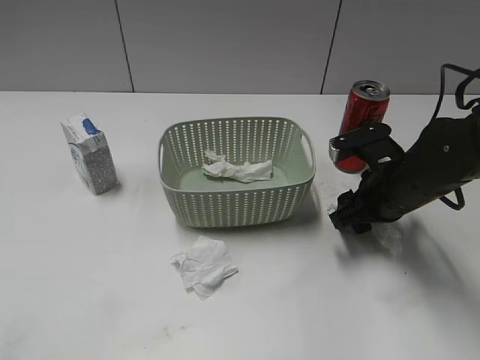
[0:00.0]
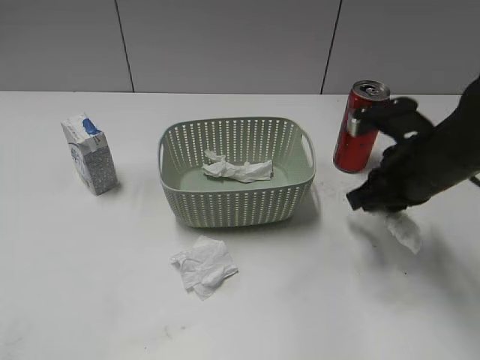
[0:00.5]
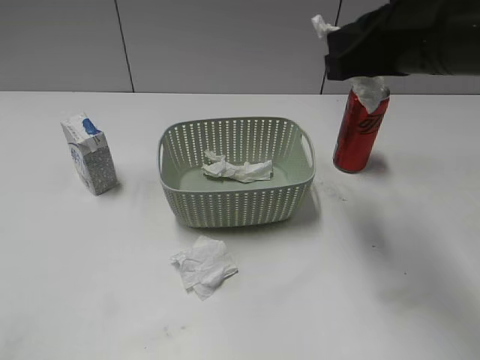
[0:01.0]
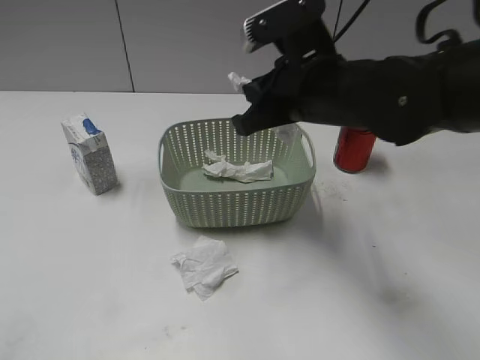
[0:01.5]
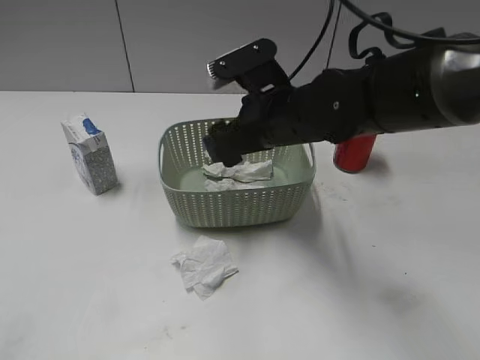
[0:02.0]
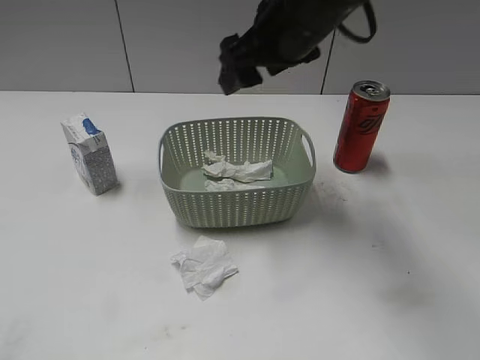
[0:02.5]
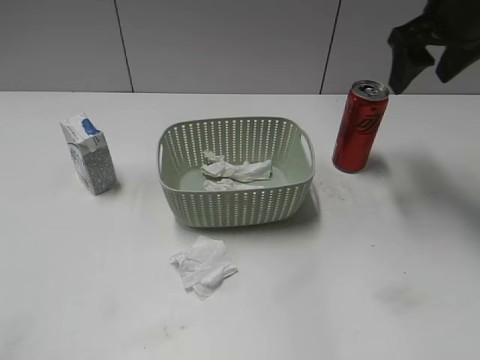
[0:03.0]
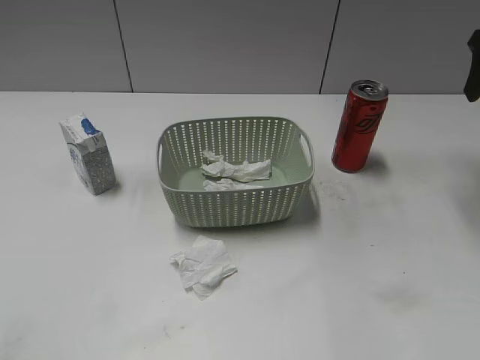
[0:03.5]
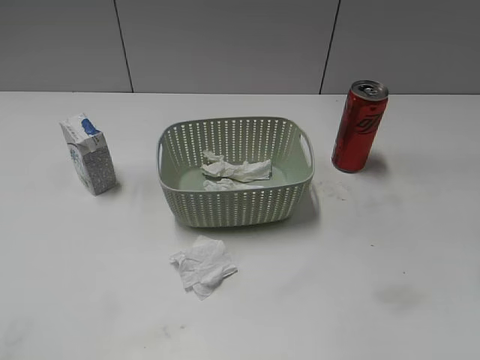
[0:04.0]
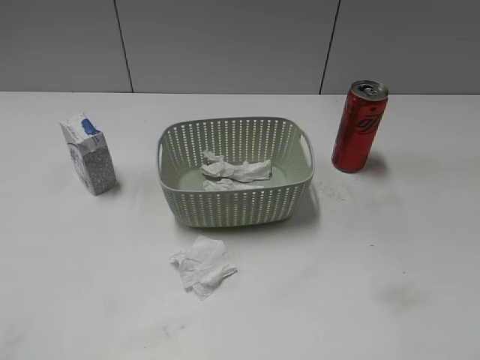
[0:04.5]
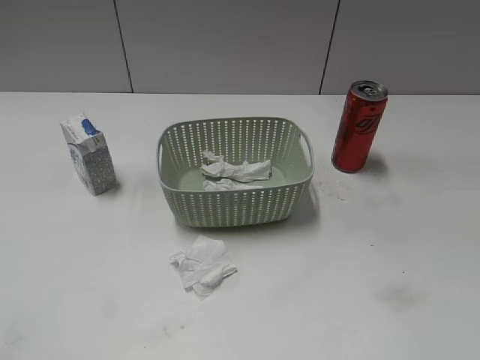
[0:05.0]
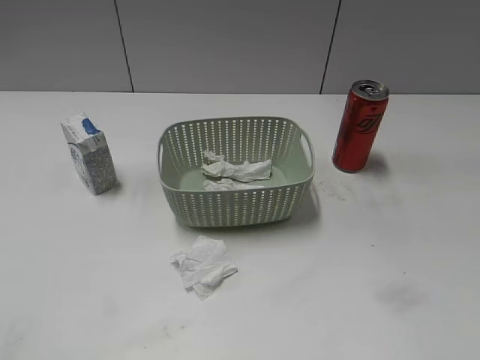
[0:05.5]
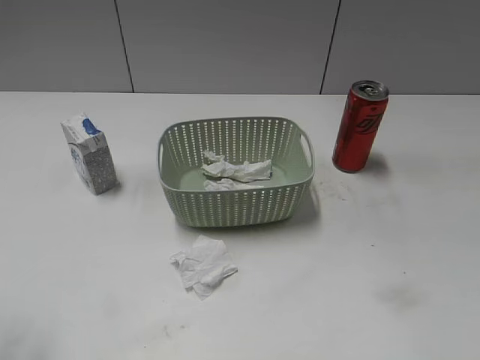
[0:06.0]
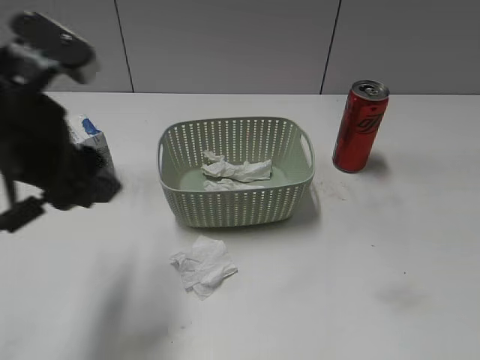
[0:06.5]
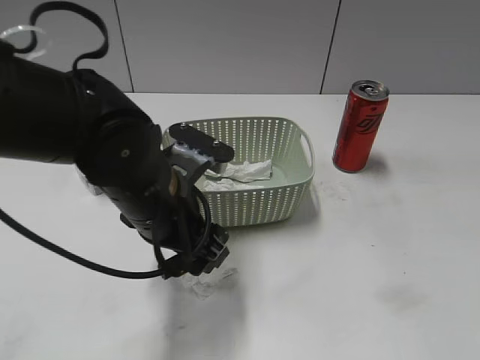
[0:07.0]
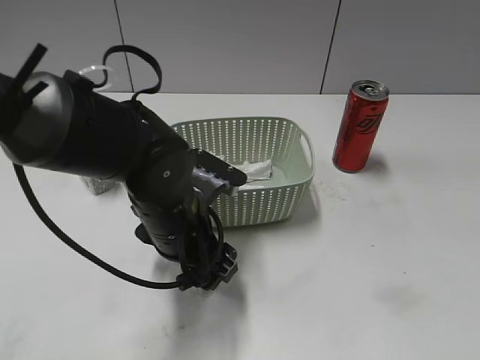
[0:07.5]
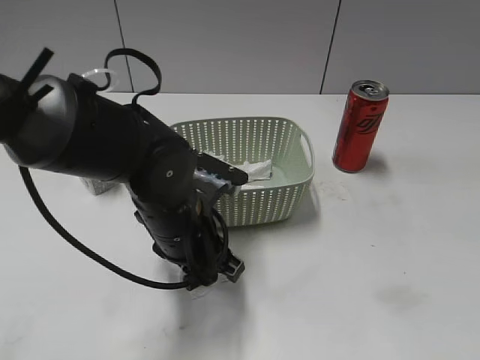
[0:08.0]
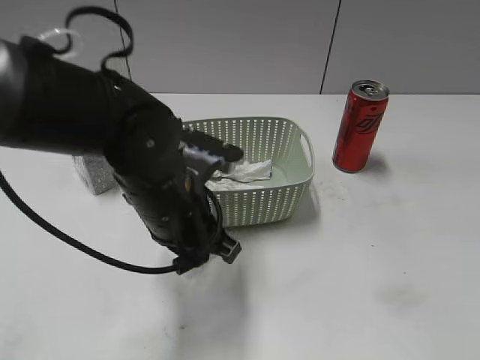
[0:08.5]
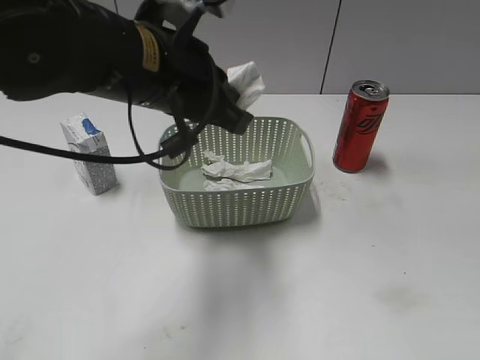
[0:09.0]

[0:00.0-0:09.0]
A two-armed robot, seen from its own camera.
Step, 0:00.5 to 0:02.0: Place the waste paper in the basket with right gripper.
Step, 0:02.5 to 0:08.0: Grasp the waste paper with left gripper.
0:00.0 to 0:02.0: The right gripper goes approximately 15 cm to the left and upward, and closes and opens again.
0:02.0 to 0:04.5: The right gripper travels to the right and backward by some 35 cm.
0:04.5 to 0:07.0: The right gripper travels backward by approximately 10 cm. The left gripper is displaced to the right, forward and downward by approximately 35 cm.
0:07.0 to 0:09.0: The left gripper is displaced upward by approximately 10 cm, and closes up.

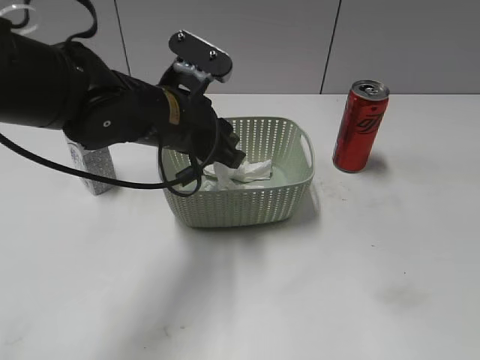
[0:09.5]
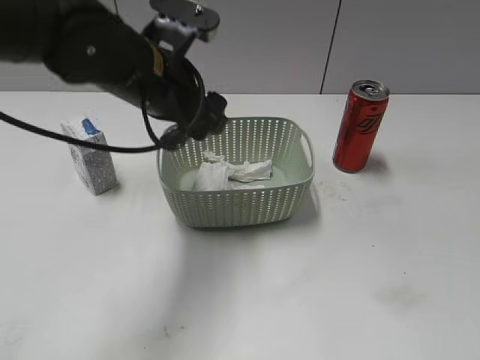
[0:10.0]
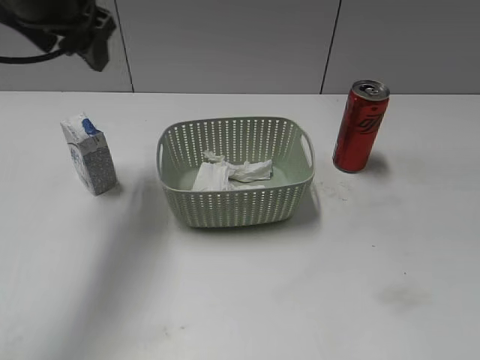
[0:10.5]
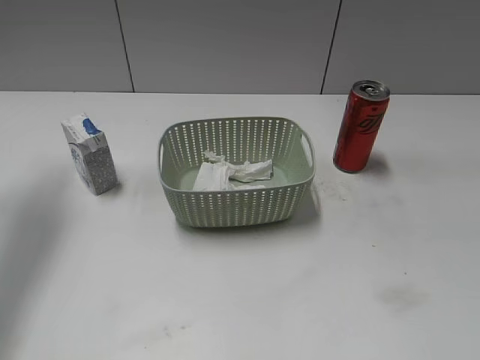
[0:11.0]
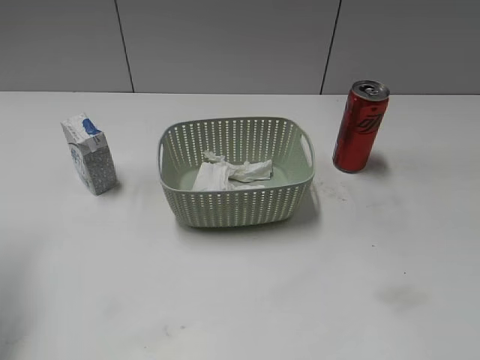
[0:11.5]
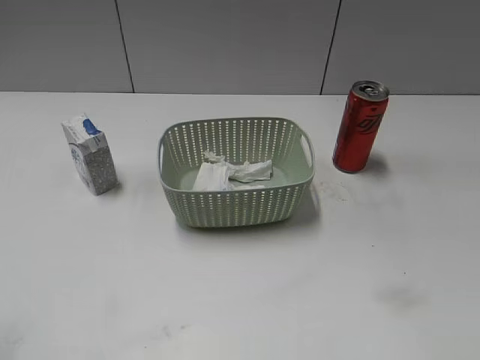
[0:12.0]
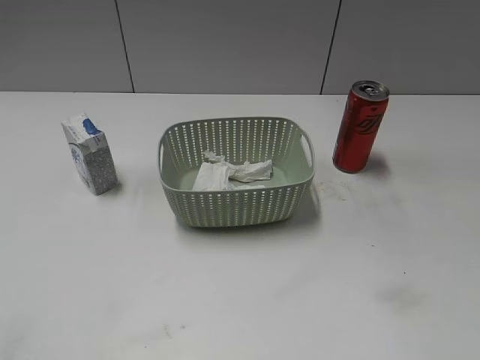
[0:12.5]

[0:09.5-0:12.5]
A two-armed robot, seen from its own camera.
0:09.5 to 0:11.0: The left gripper shifts some 25 cm to the left and upward, and opens up.
0:11.0 to 0:12.5: The left gripper heads backward, covering approximately 30 cm.

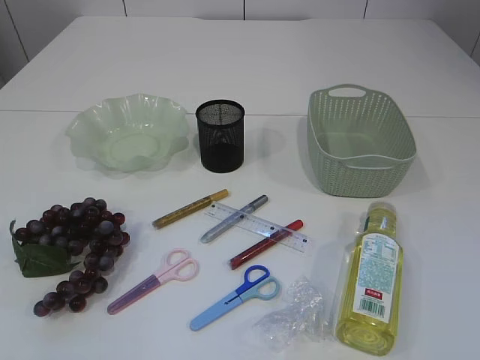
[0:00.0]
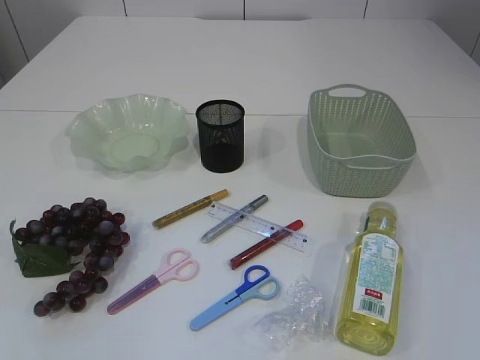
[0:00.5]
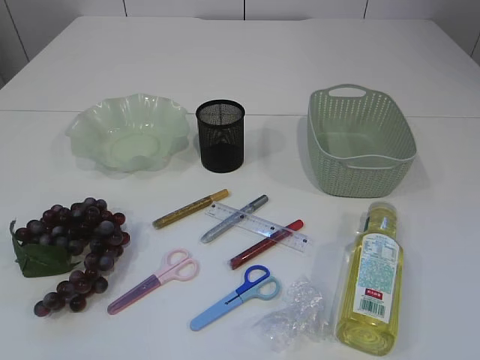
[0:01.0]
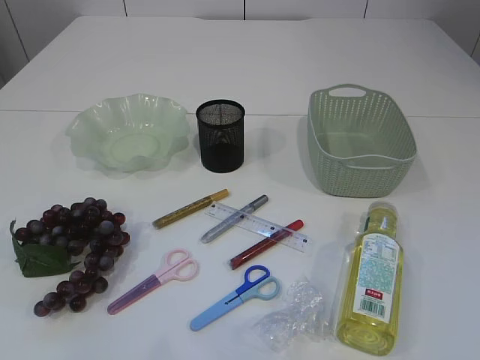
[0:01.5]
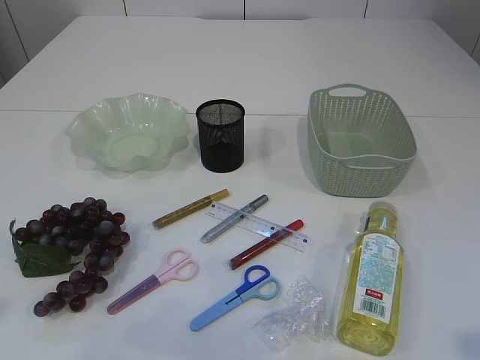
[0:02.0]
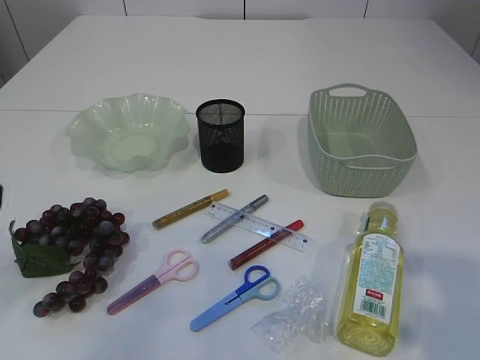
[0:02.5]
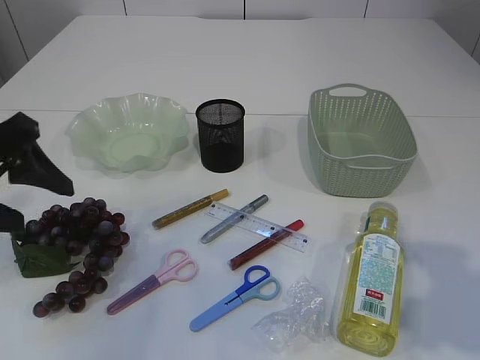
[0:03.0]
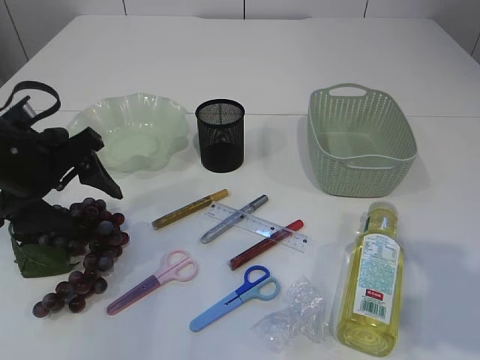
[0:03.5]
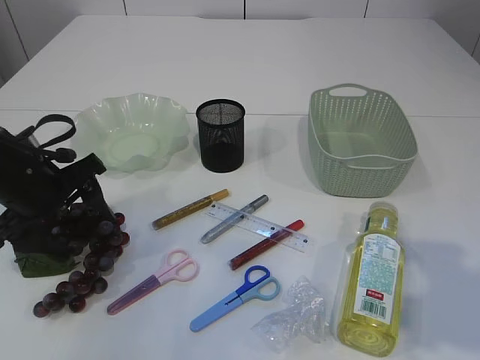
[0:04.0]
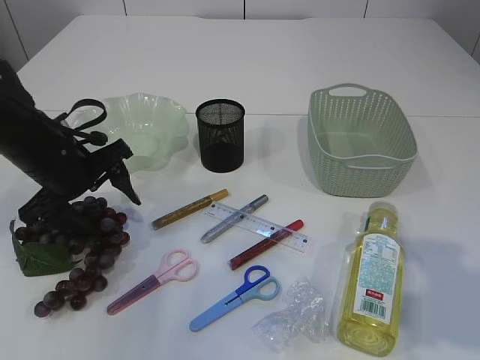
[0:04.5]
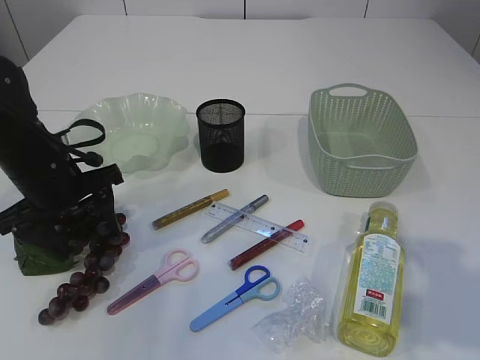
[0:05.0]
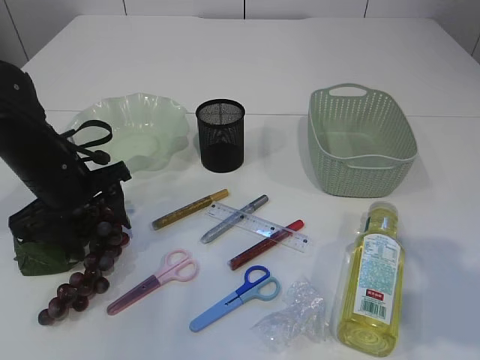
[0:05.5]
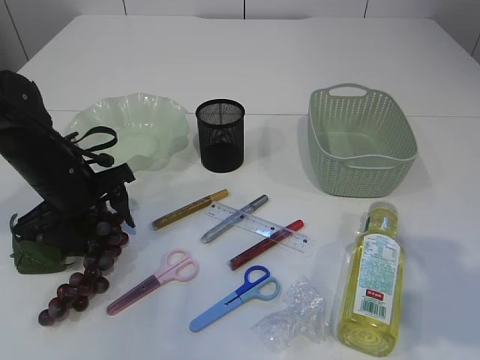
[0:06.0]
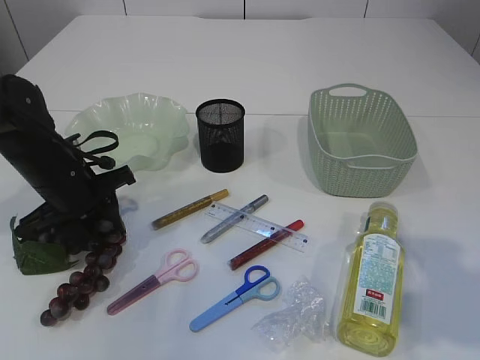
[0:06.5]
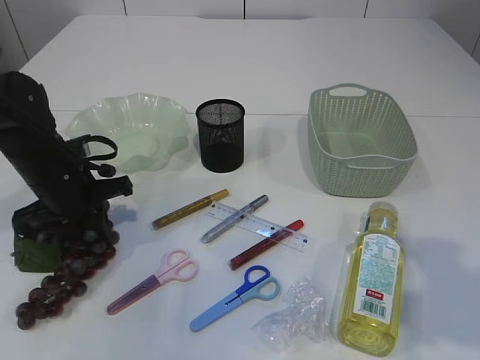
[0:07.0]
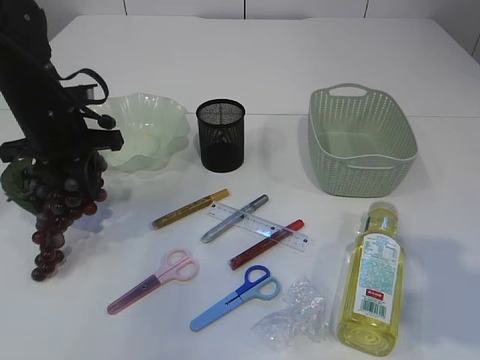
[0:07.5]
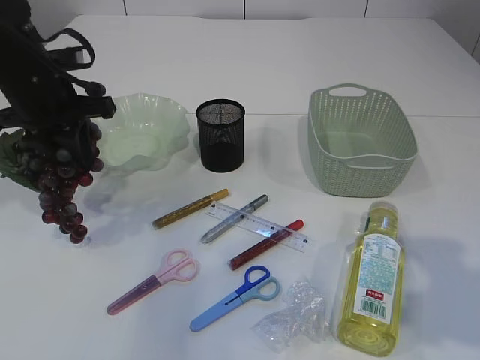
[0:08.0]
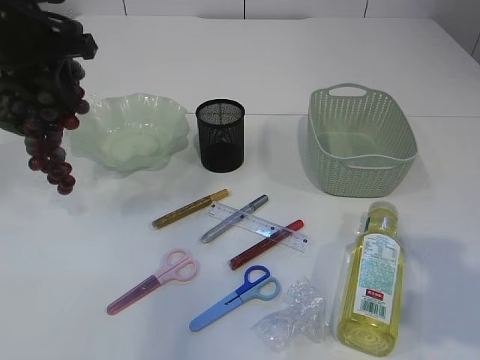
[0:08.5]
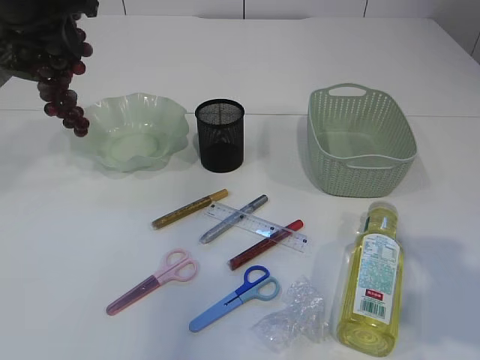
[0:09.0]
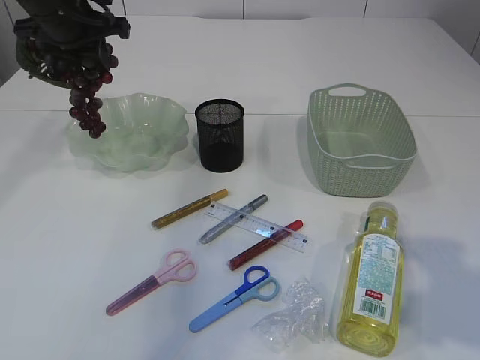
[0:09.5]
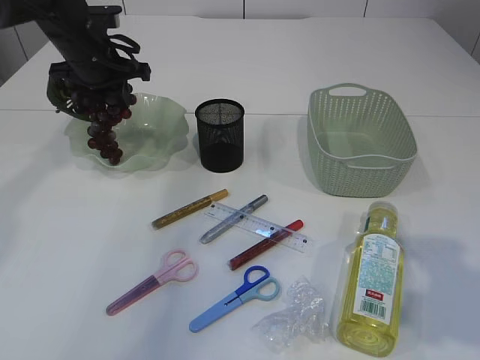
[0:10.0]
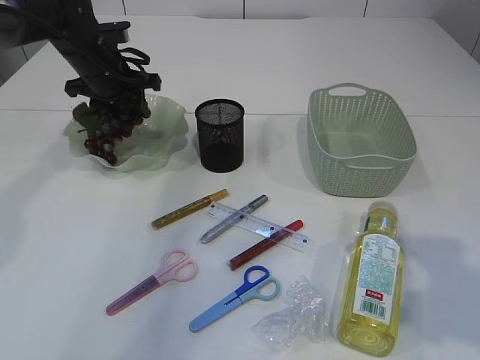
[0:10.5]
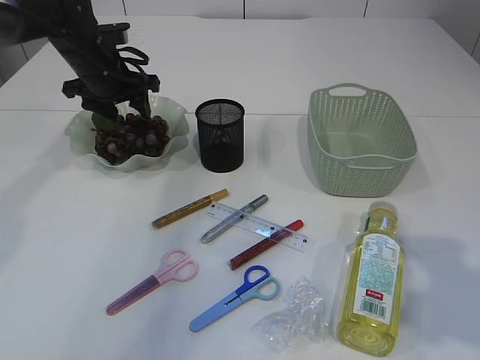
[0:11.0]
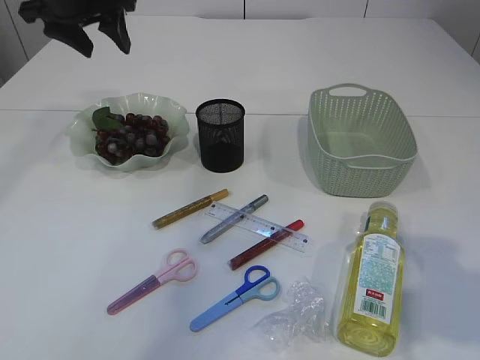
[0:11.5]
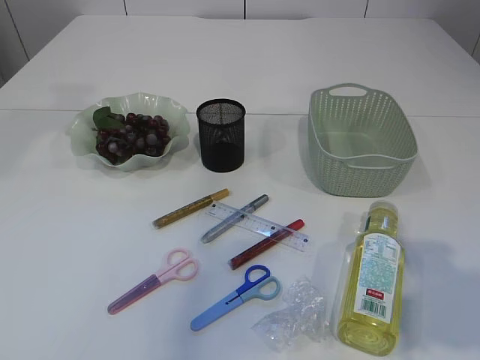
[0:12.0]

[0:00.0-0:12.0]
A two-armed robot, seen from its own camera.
Step, 0:00.0 to 0:08.0: Pick up the grapes.
Step, 0:08.5 to 0:11.0: Place the grapes in the plate.
0:02.0 to 0:04.0: The left gripper moves forward and downward, about 30 cm.
0:04.0 to 0:06.0: The left gripper moves about 5 cm.
0:06.0 to 0:08.0: The left gripper shifts roughly 10 cm upward, and closes up.
0:08.0 to 0:10.0: The left gripper travels forward by approximately 10 cm.
0:10.0 to 0:12.0: The left gripper travels upward and backward by approximately 20 cm, and opens its fingers.

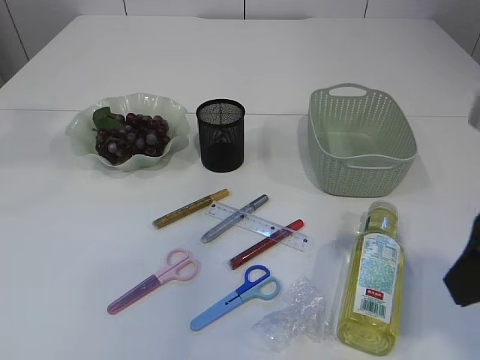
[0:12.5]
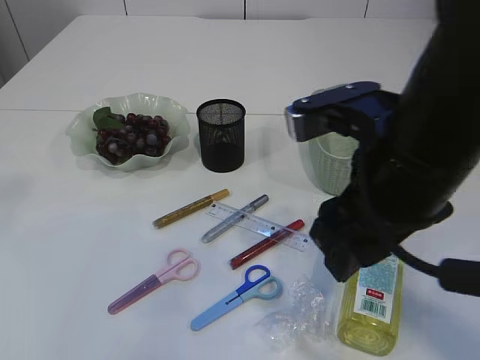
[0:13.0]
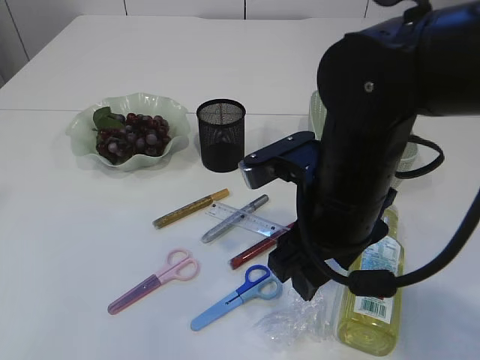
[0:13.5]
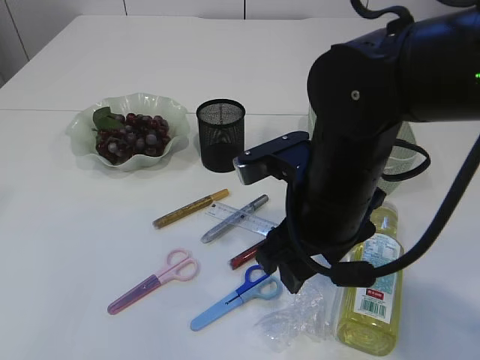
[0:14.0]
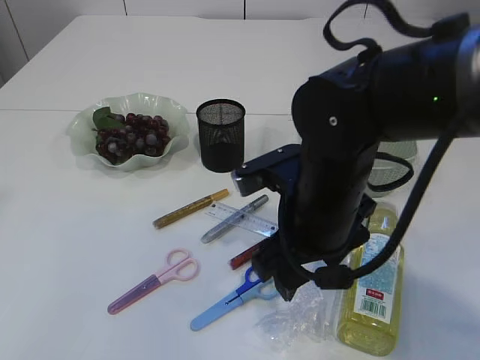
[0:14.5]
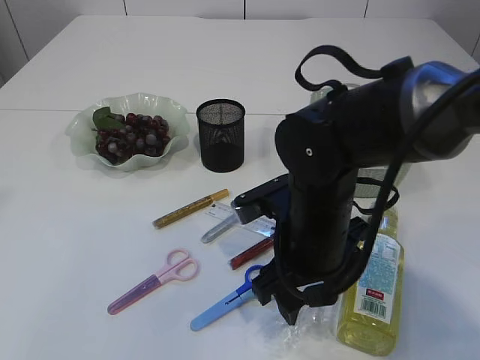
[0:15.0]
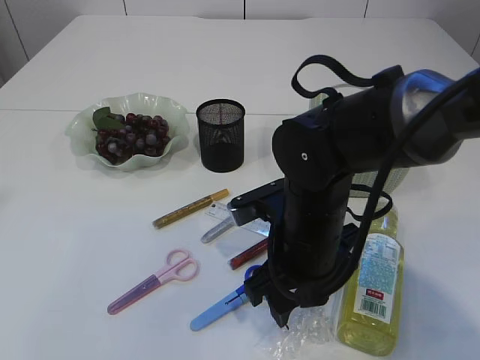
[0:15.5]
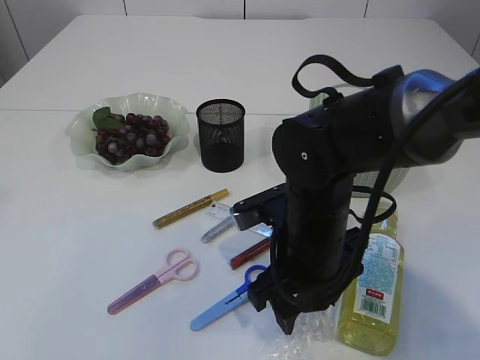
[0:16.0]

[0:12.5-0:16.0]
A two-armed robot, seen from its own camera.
0:12.5 to 0:14.5: The left gripper goes roughly 15 cm backward. The right gripper heads to the left, forward and downward, covering approximately 20 cm.
0:14.5 to 0:16.0: The grippers make only small movements.
